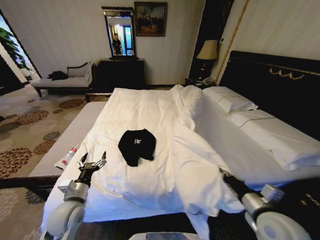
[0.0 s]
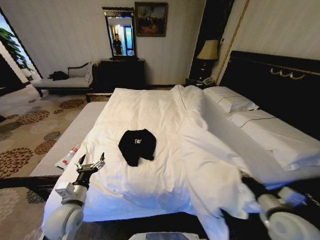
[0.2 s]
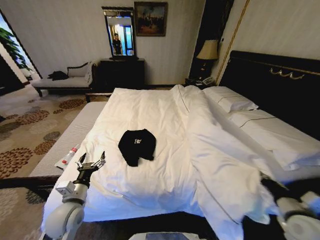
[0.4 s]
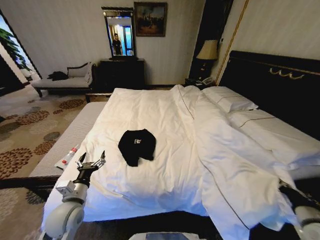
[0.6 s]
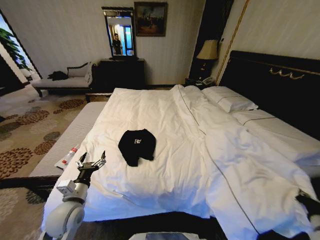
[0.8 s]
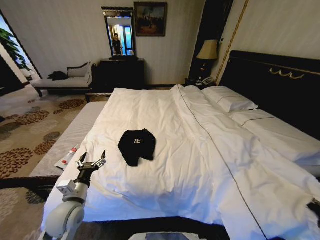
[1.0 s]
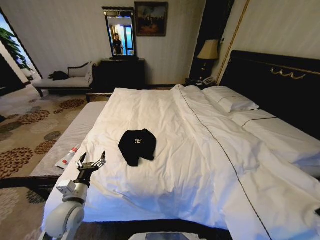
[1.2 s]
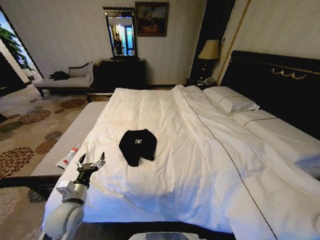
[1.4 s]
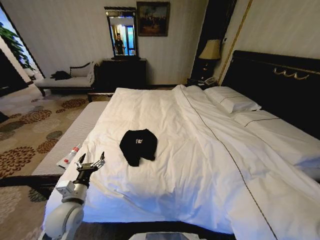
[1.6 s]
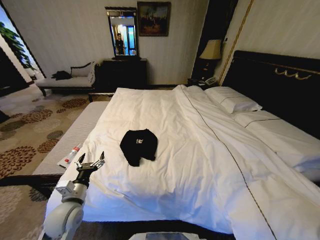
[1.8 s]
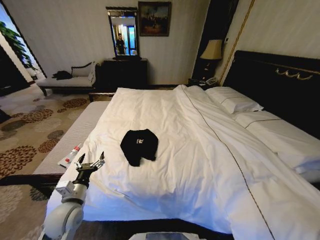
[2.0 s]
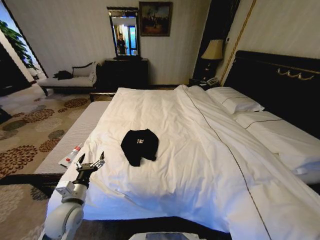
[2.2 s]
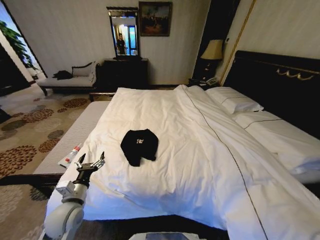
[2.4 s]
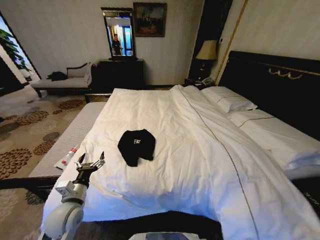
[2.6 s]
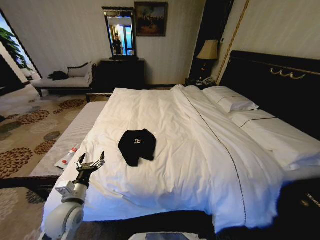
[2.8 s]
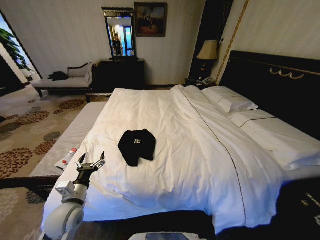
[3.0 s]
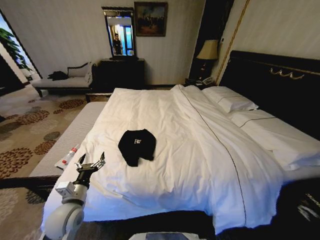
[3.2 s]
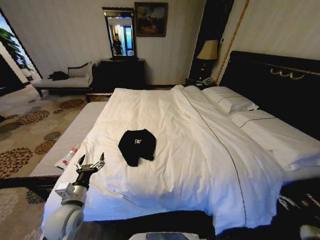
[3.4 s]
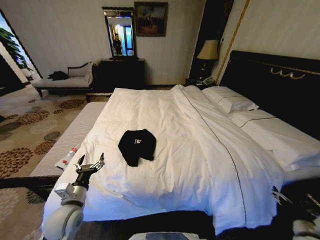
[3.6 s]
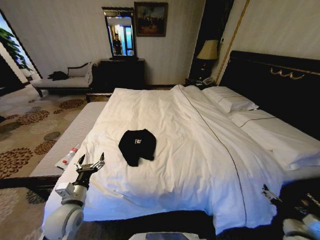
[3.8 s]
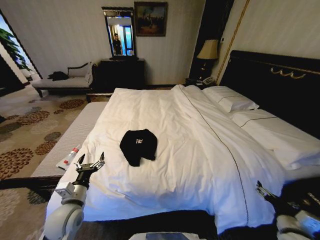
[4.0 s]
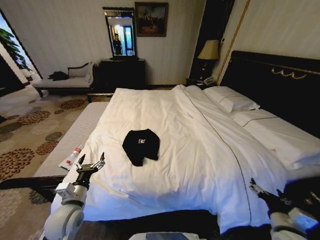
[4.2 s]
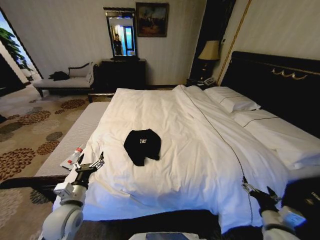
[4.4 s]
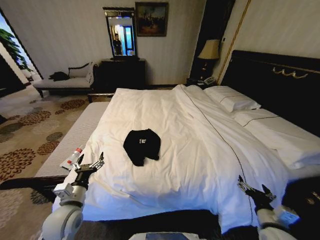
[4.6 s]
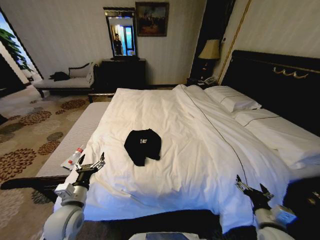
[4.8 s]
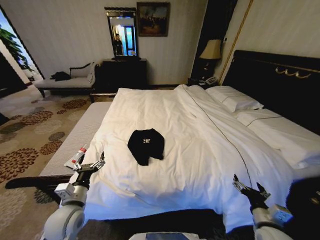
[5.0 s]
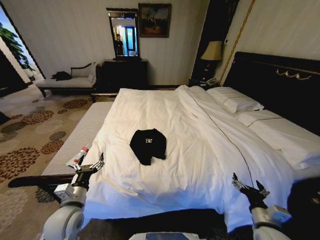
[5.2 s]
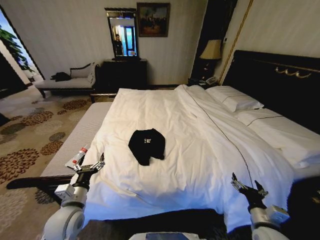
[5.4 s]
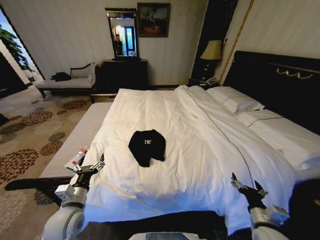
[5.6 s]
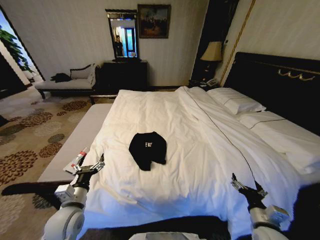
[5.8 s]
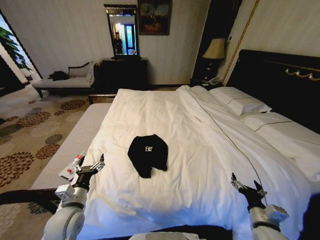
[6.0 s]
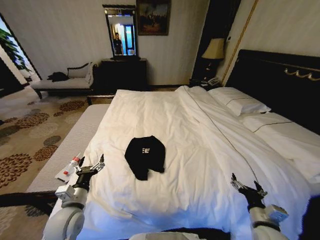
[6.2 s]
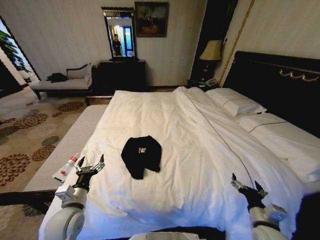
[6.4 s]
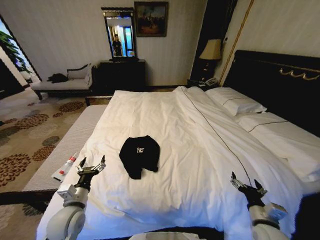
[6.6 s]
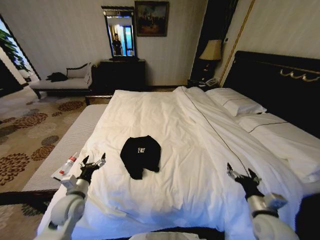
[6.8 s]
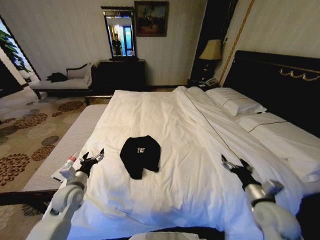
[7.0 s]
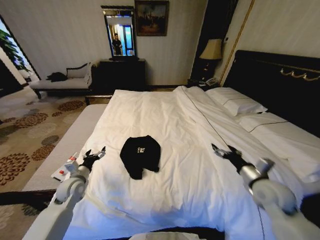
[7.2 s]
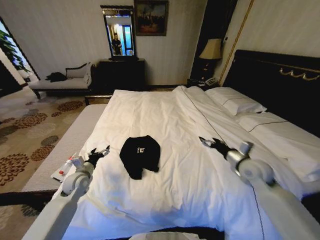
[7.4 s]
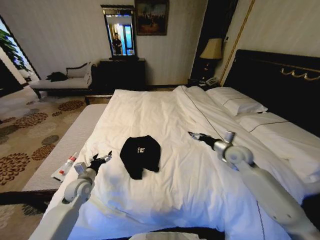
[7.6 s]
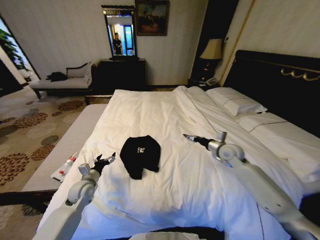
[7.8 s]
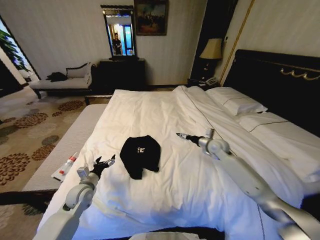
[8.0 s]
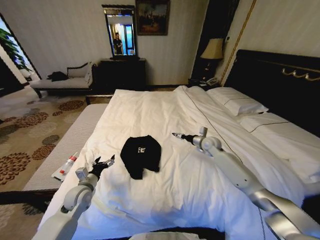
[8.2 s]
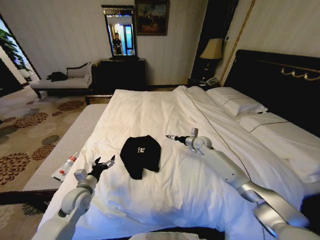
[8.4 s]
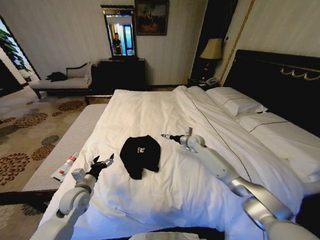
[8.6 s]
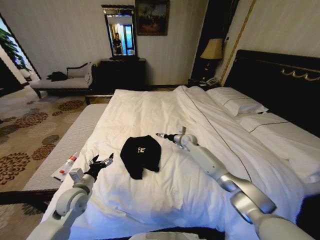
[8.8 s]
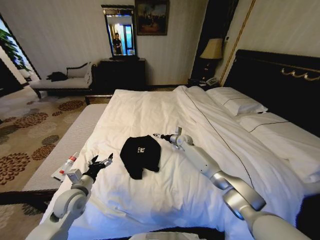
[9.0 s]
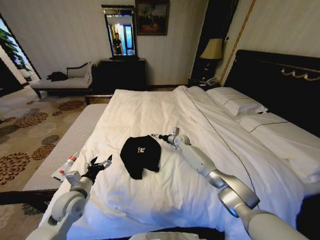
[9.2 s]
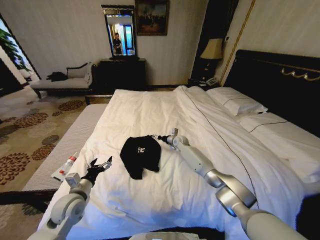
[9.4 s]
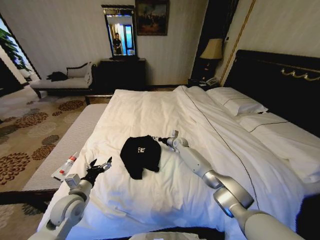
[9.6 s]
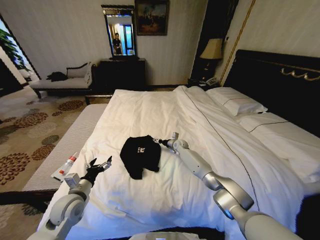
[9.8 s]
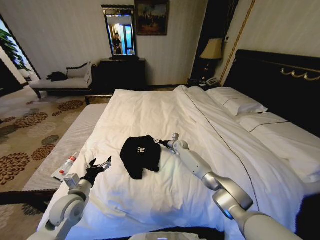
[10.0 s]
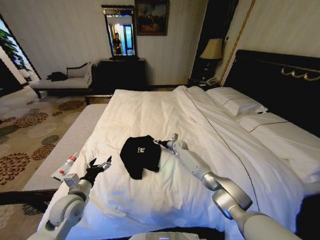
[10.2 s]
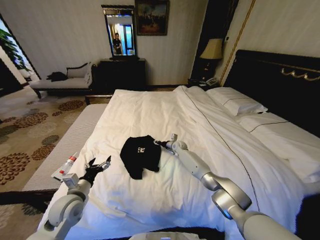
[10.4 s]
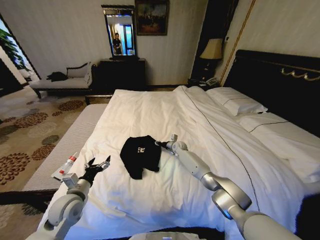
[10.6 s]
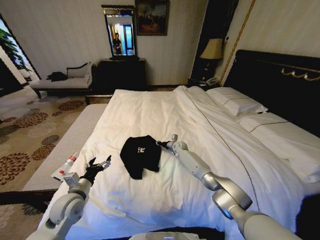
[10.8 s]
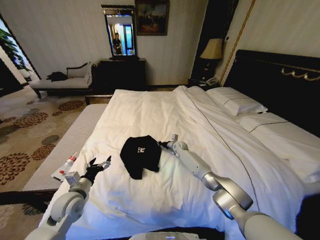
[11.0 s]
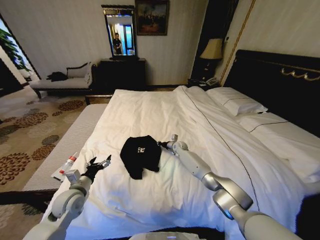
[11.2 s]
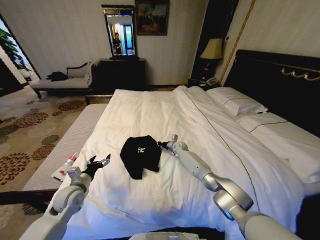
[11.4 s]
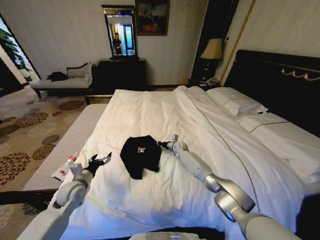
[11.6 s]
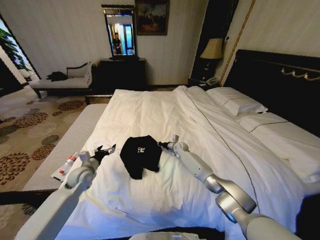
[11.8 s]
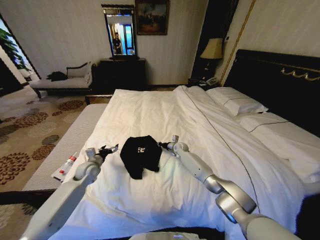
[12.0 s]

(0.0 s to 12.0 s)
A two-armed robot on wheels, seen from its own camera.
Task of the whole recording: Fold the clothes on the bed.
0.0 s - 1.6 s: The right gripper moves to the right, about 25 cm.
1.6 s - 3.0 s: The right gripper opens.
3.0 s - 4.4 s: The right gripper is displaced to the left by approximately 20 cm.
6.0 s - 7.6 s: The left gripper is displaced forward and downward by approximately 15 cm. Meanwhile the right gripper goes approximately 30 cm forward and upward.
7.6 s - 9.0 s: The left gripper goes roughly 5 cm backward. The right gripper is displaced forward, to the left and downward by about 30 cm.
9.0 s - 10.4 s: The right gripper heads downward, covering roughly 5 cm, and closes up.
10.4 s - 12.0 s: The left gripper is displaced forward by roughly 15 cm; the right gripper closes its fingers.

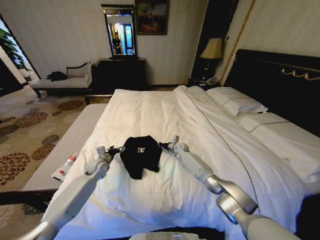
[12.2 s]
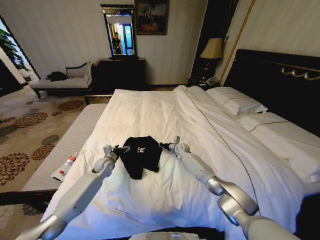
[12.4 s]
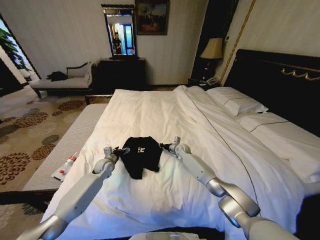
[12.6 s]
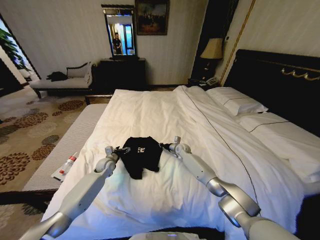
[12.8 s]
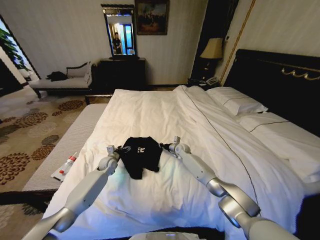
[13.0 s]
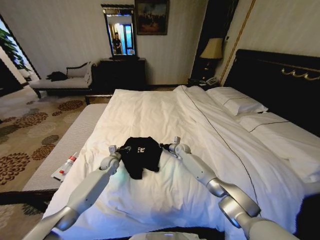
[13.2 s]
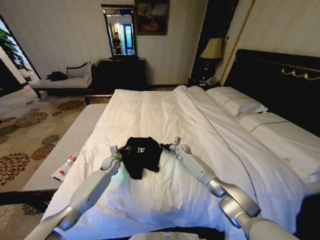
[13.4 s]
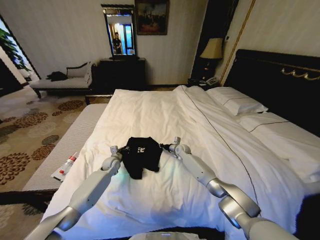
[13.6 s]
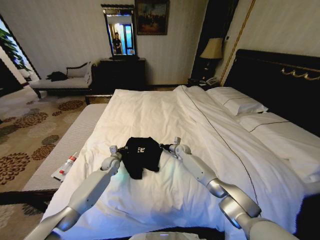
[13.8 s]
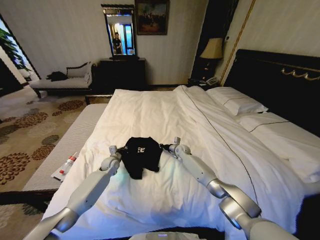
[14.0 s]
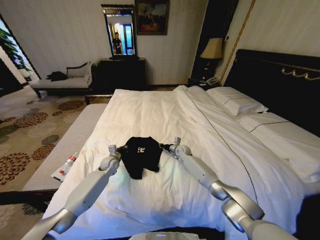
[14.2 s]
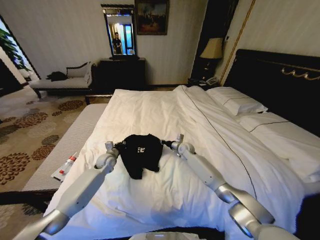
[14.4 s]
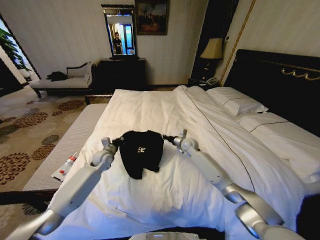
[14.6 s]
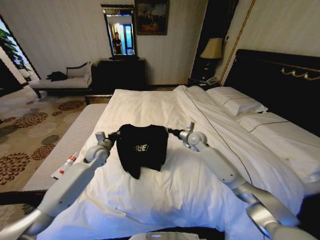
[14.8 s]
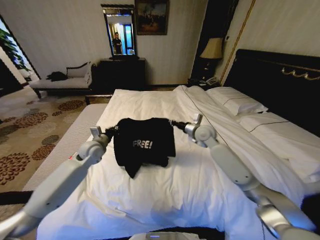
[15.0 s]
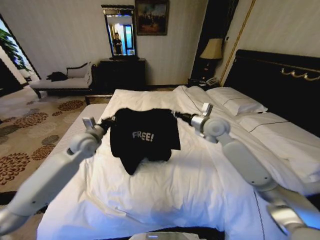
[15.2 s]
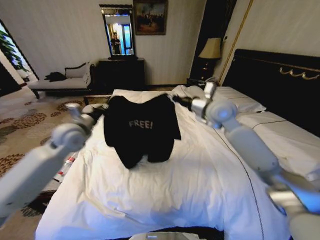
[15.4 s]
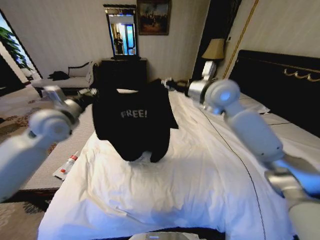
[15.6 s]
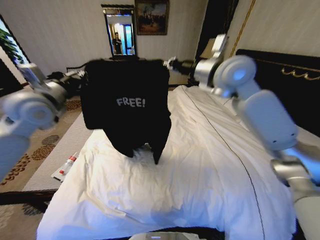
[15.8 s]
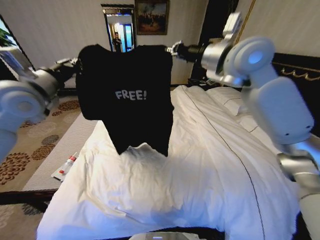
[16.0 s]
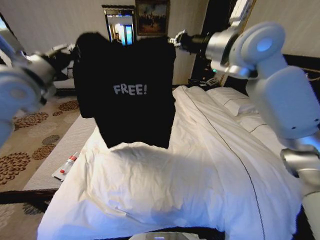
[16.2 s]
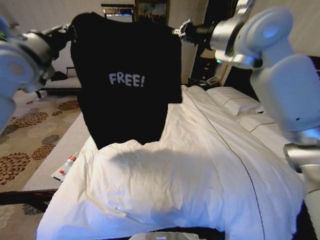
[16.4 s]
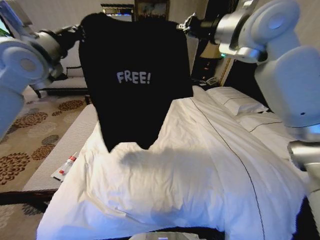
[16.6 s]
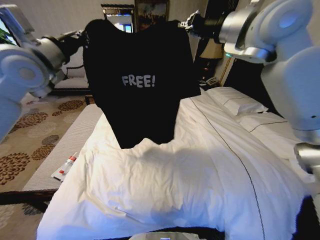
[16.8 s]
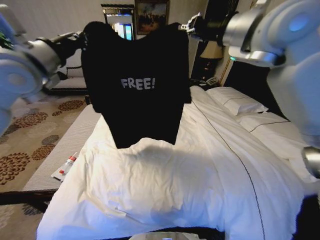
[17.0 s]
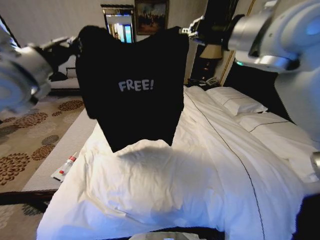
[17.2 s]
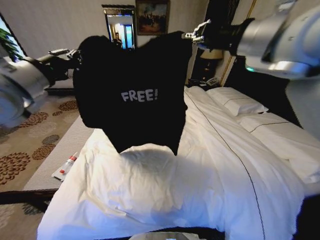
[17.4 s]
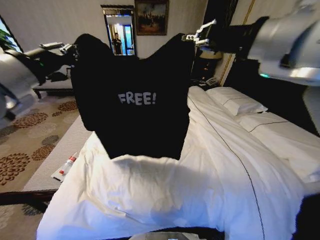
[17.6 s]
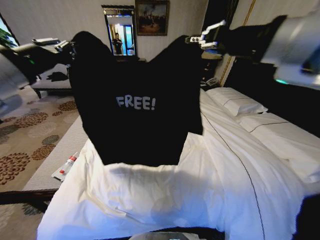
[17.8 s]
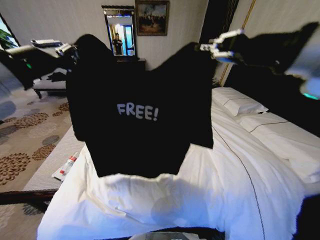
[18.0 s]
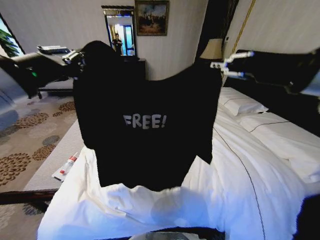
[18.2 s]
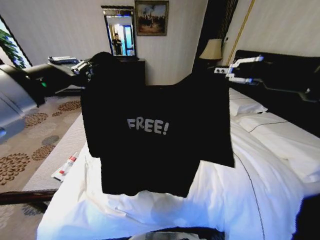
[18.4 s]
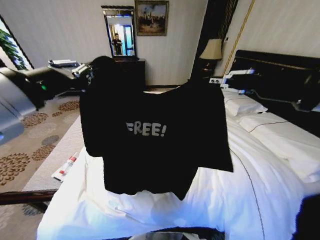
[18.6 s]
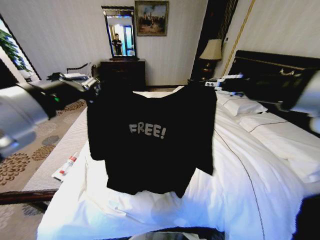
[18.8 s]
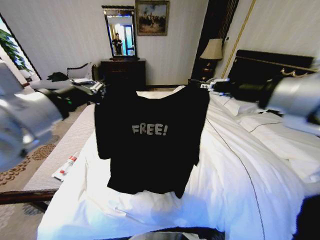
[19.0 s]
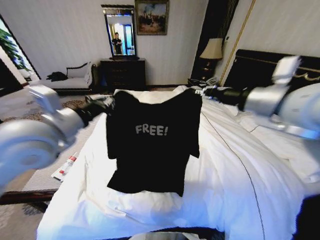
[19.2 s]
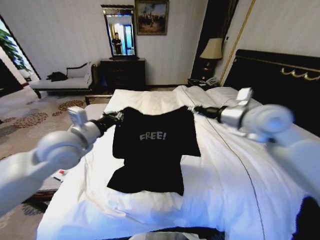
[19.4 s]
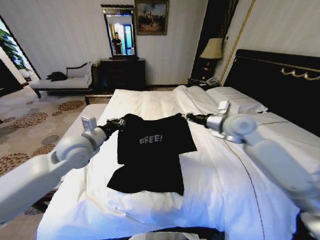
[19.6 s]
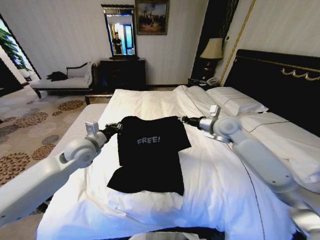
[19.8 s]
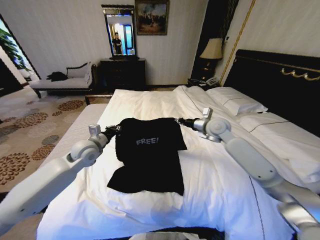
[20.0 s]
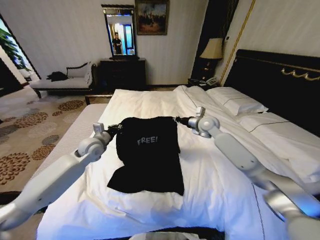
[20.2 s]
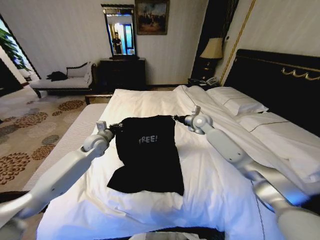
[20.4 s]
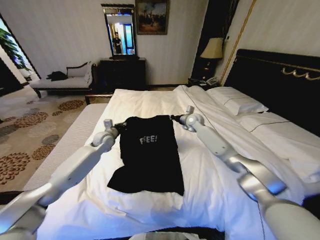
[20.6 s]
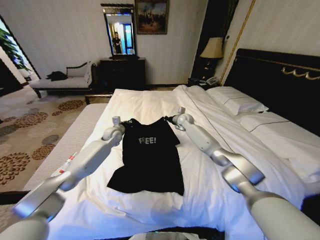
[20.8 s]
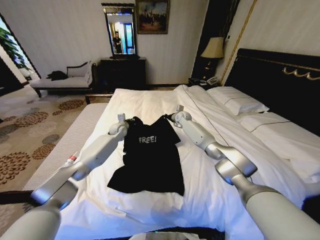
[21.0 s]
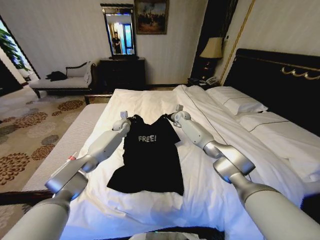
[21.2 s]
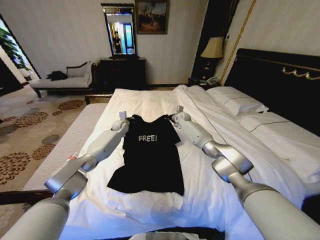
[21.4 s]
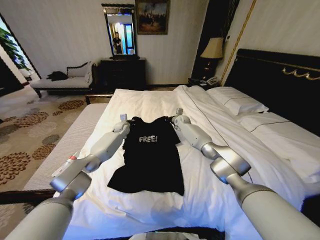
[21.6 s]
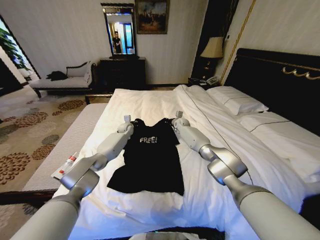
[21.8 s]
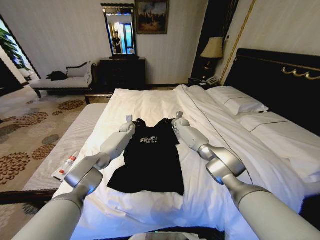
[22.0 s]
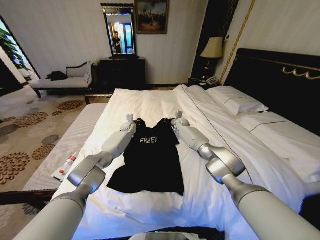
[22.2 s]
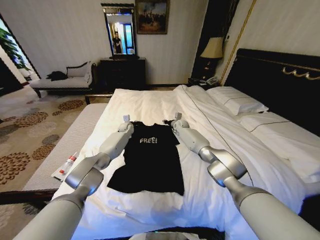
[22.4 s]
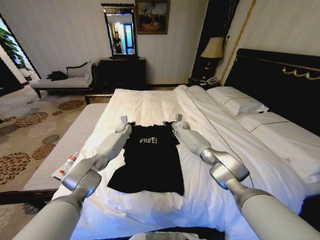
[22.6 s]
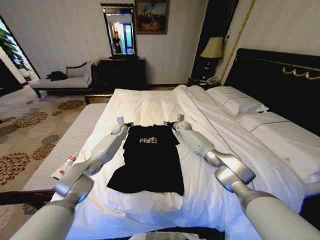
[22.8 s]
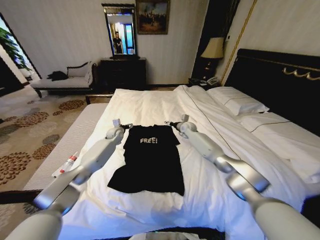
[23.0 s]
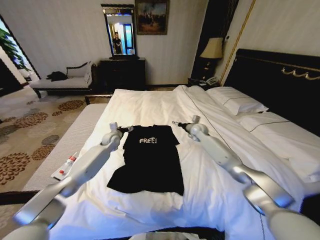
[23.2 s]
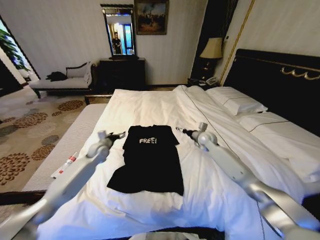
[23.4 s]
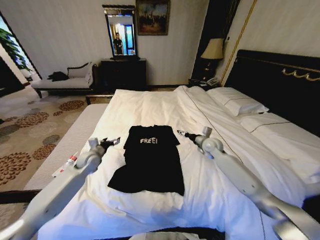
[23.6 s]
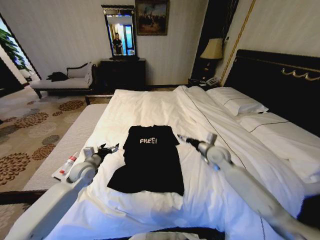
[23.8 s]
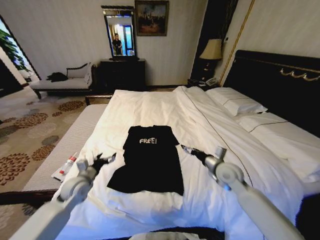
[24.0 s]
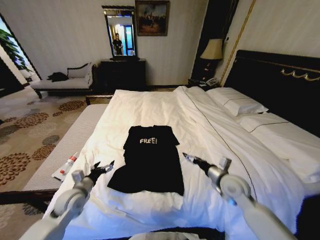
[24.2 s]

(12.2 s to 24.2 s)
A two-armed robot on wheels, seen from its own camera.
Task of the whole recording: Fold the clothes on the bed.
12.2 s - 13.8 s: The left gripper heads to the right, covering some 5 cm, and closes up.
13.8 s - 15.2 s: Both grippers travel together upward, roughly 25 cm.
15.2 s - 16.6 s: The two grippers go approximately 30 cm upward.
16.6 s - 18.2 s: Both grippers move backward, some 20 cm.
18.2 s - 19.8 s: Both grippers move downward and forward, approximately 30 cm.
19.8 s - 21.2 s: The left gripper shifts some 25 cm forward. The right gripper moves forward, downward and to the left, approximately 30 cm.
21.2 s - 22.6 s: The left gripper opens, while the right gripper is displaced downward by roughly 5 cm, and opens up.
22.6 s - 24.2 s: The grippers both shift backward by some 40 cm. The left gripper opens its fingers. Meanwhile the right gripper opens its fingers.
